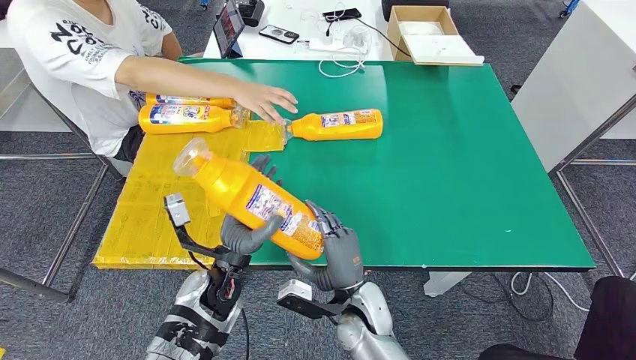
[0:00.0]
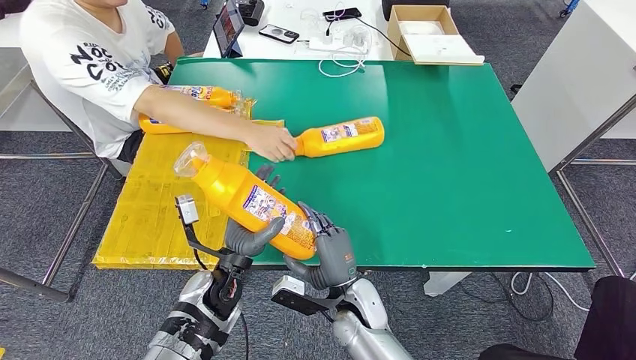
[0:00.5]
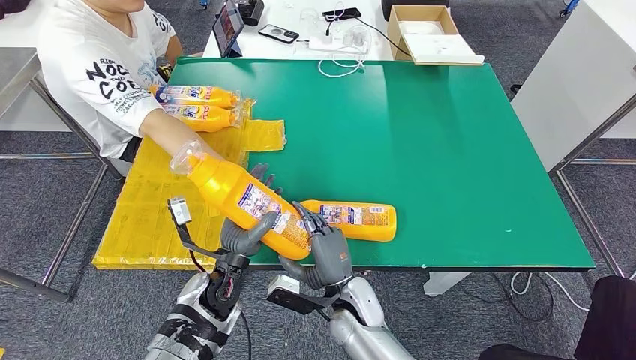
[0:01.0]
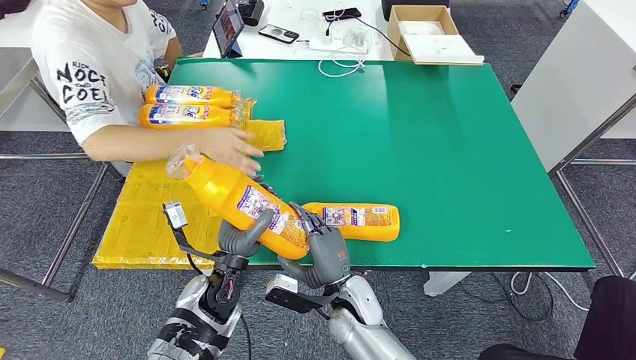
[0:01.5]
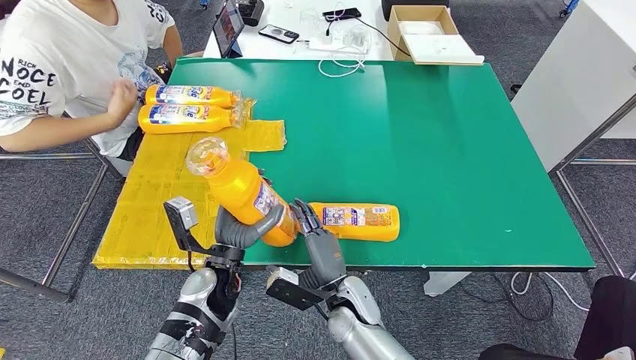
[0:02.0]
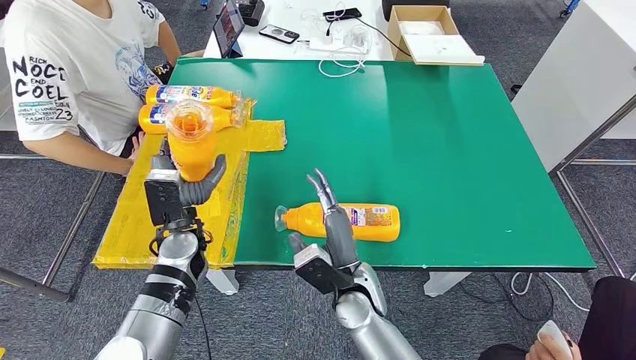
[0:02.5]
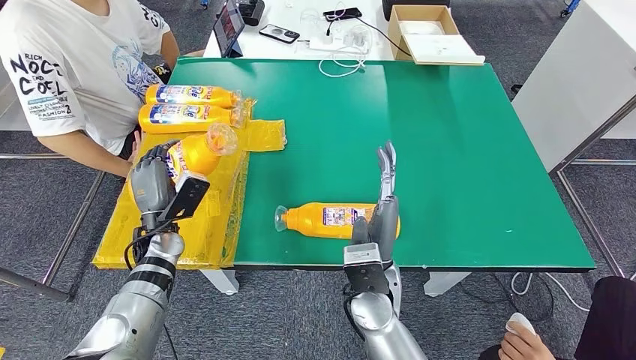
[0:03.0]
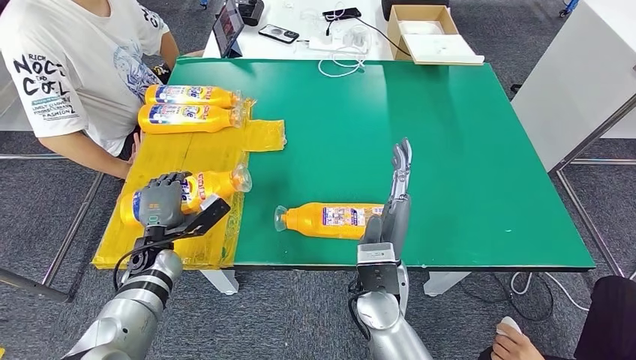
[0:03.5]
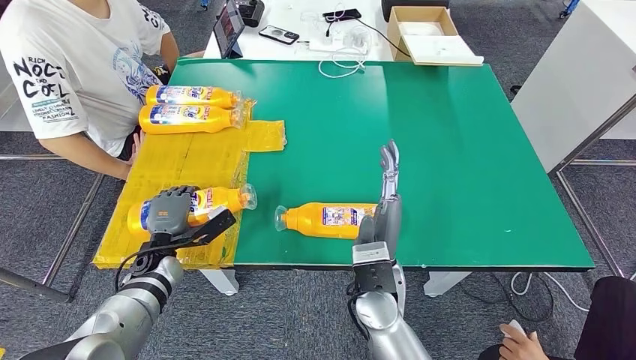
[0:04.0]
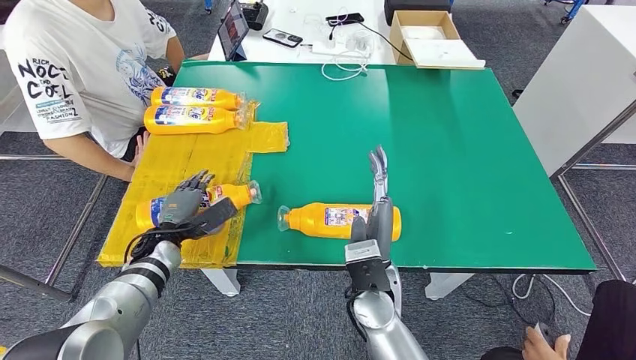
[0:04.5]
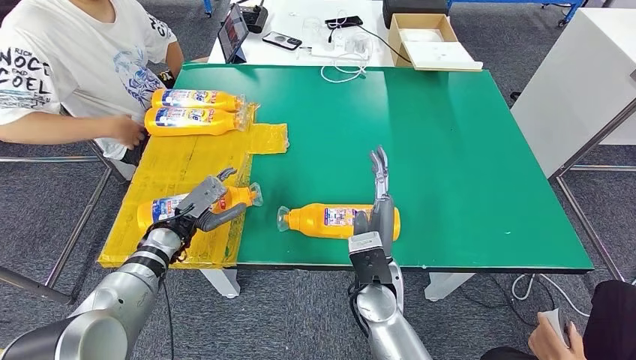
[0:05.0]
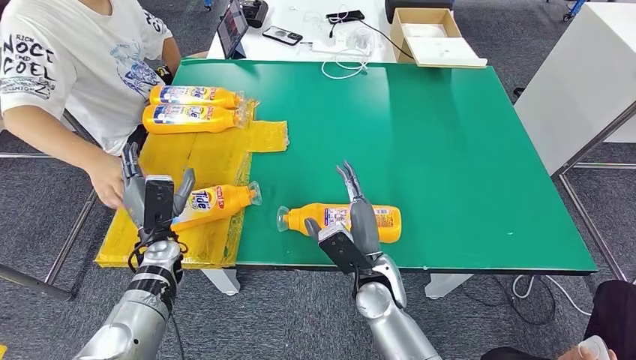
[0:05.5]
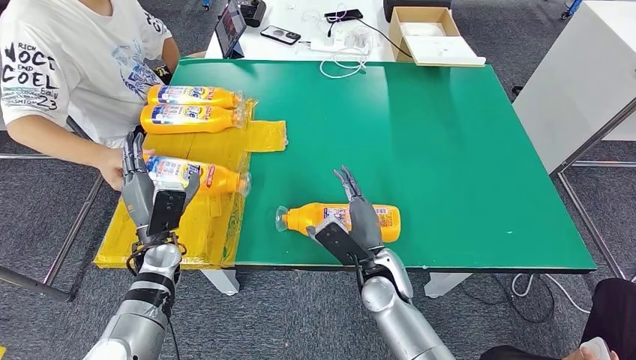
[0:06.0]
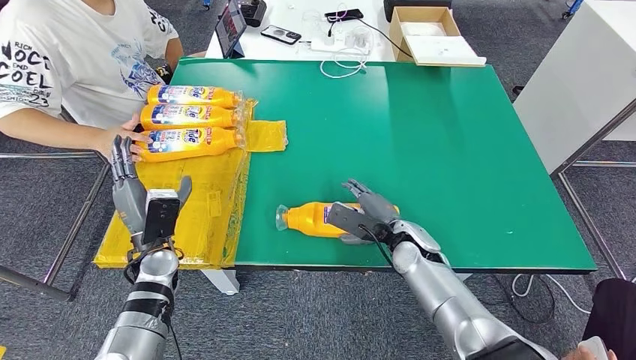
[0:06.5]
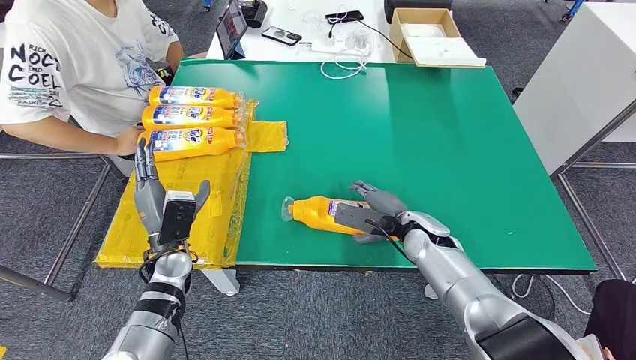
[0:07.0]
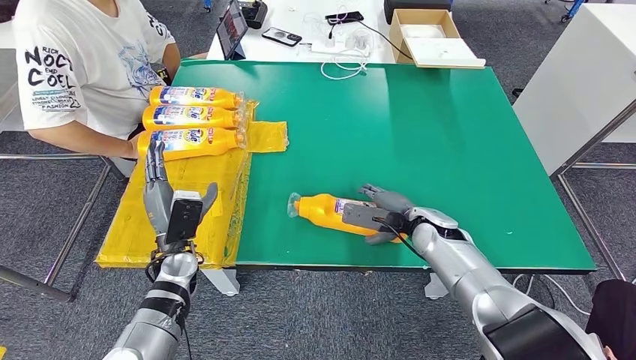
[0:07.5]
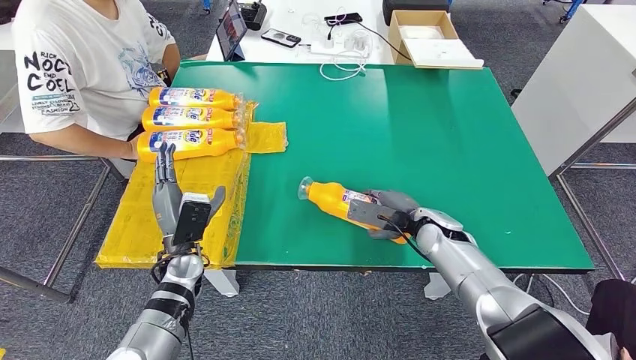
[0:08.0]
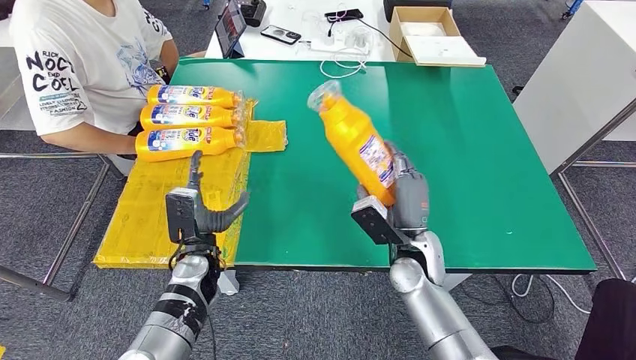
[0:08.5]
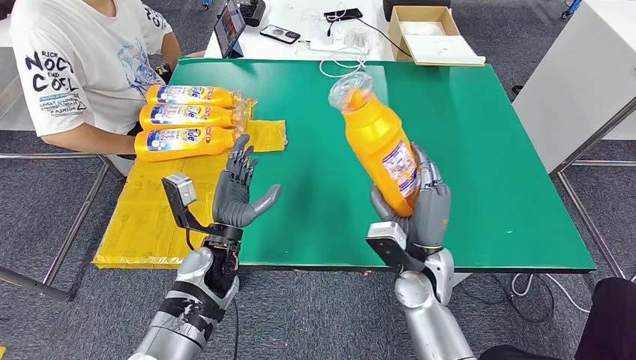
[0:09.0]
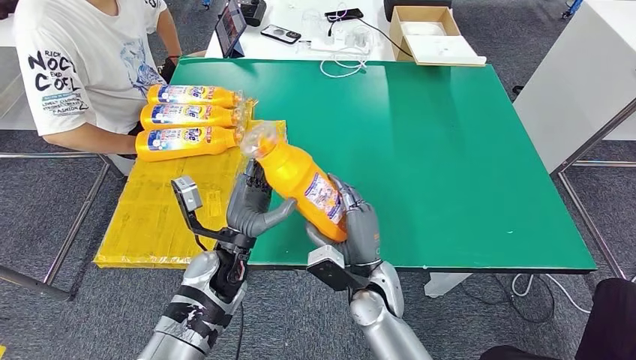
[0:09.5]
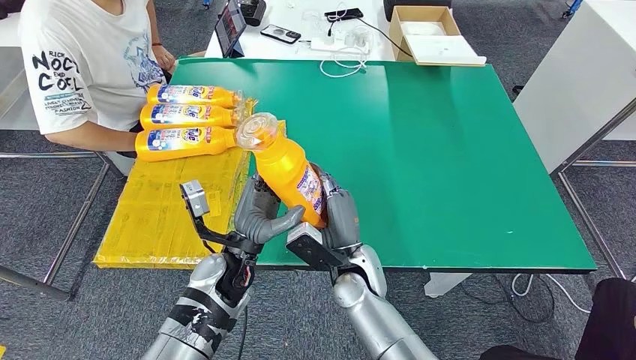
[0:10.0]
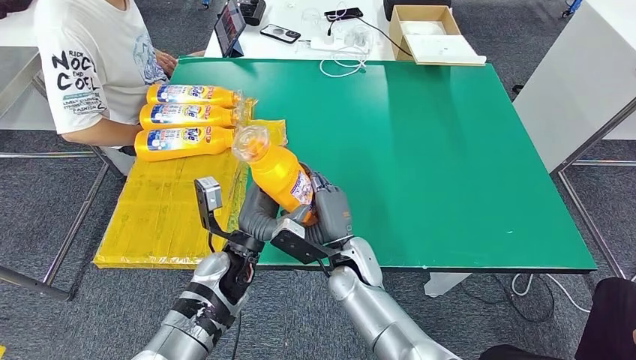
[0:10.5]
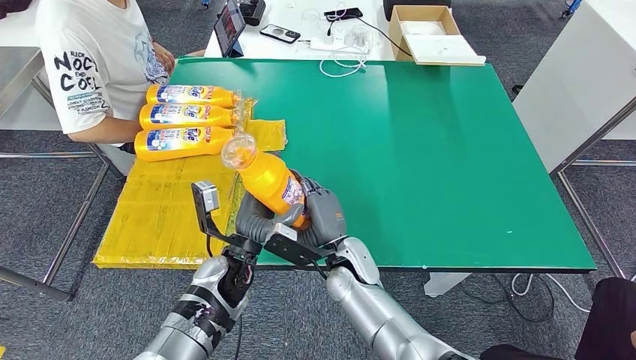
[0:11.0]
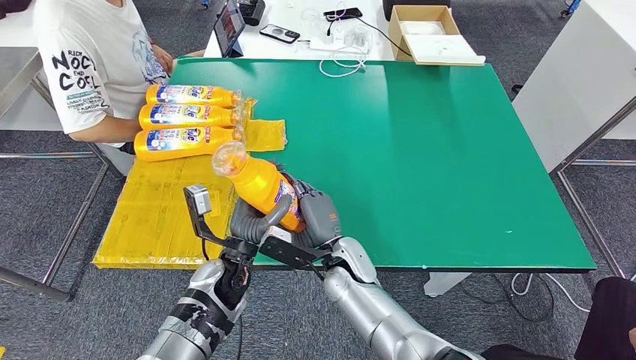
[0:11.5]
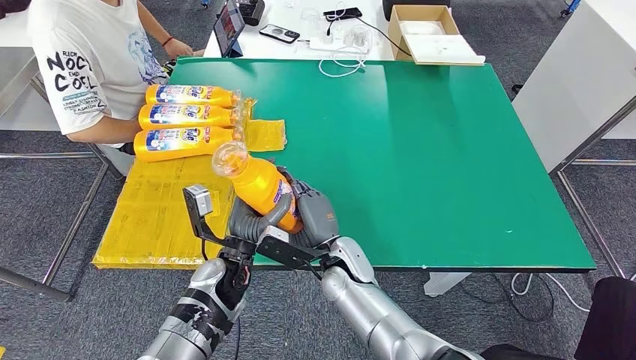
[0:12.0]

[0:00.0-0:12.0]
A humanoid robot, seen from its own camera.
Step, 0:00.0 to 0:05.0: Flip the fast-moving consumer goods bottle to the front side.
Step, 0:05.5 to 0:11.0: Pick up the fast-moving consumer goods bottle from the table.
0:04.0 to 0:06.0: The left hand moves about 5 cm; the right hand heads downward, covering roughly 5 cm.

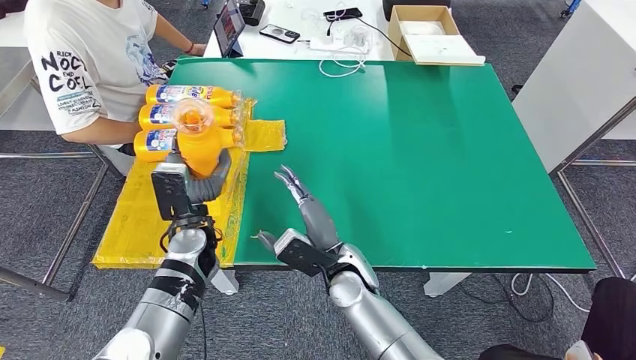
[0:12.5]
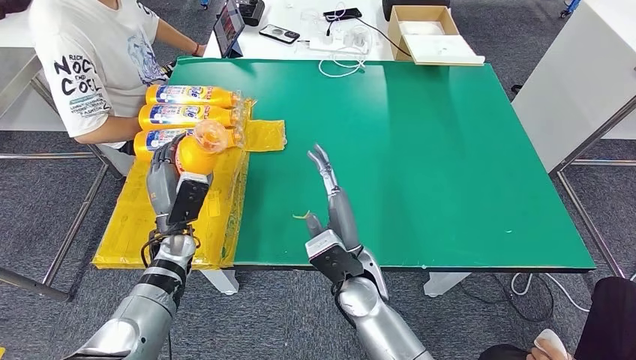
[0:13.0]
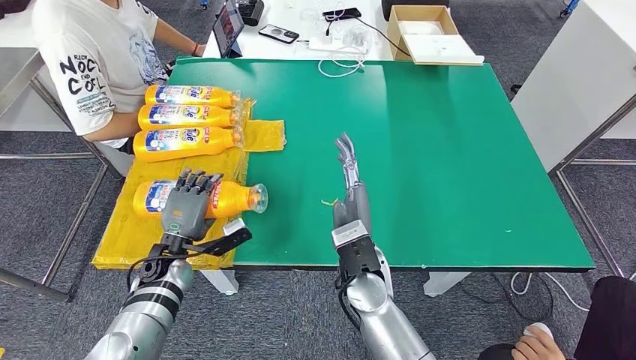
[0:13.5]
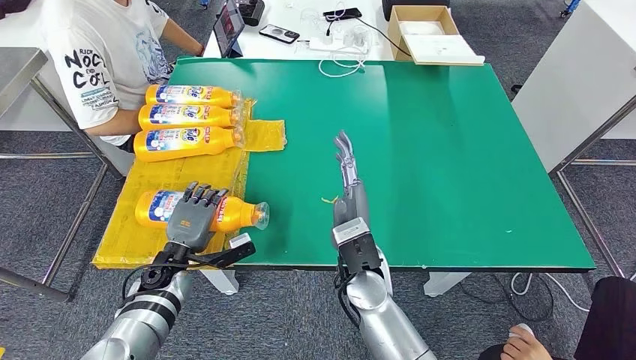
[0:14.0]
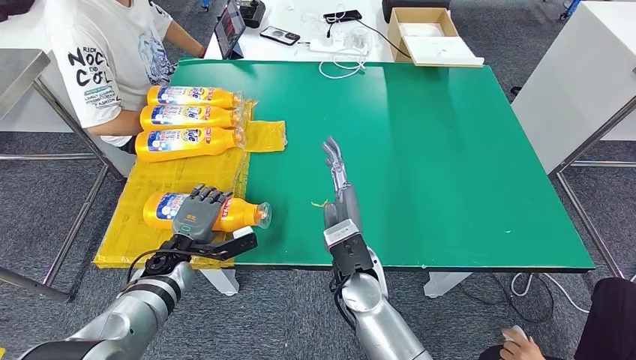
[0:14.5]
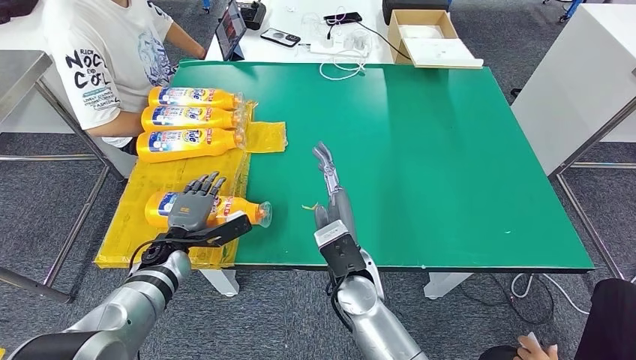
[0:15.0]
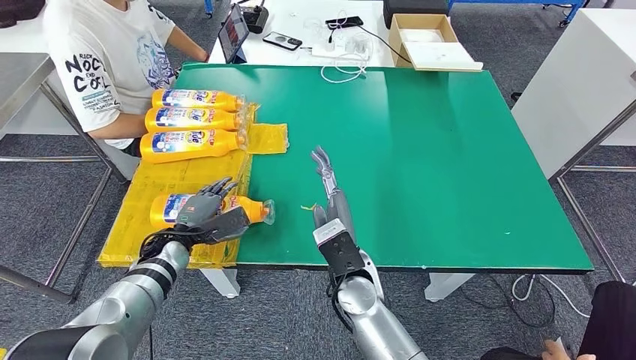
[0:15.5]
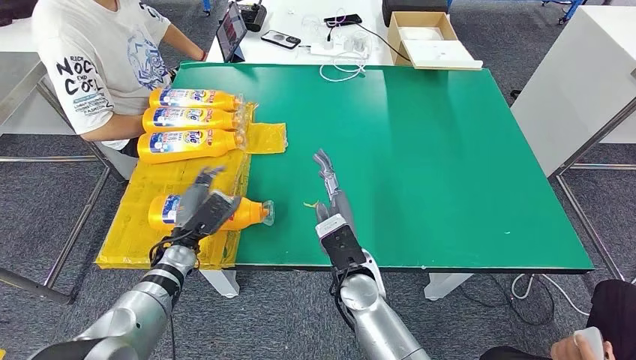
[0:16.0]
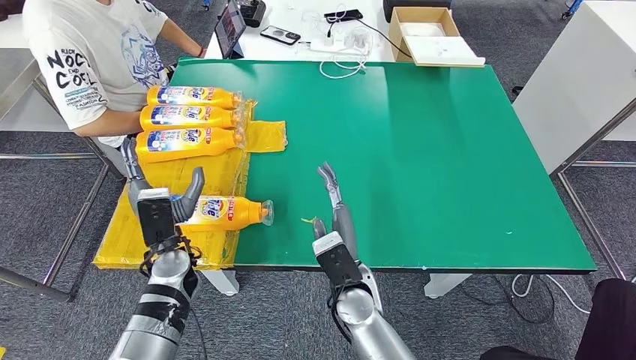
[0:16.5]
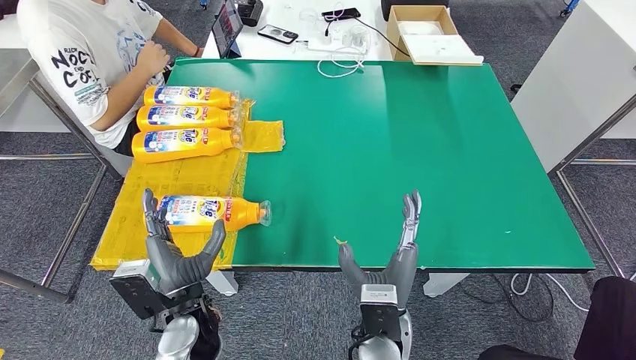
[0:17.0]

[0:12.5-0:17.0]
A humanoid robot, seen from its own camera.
Step, 0:12.5 to 0:17.0: Flip the fast-moving consumer goods bottle to the front side.
